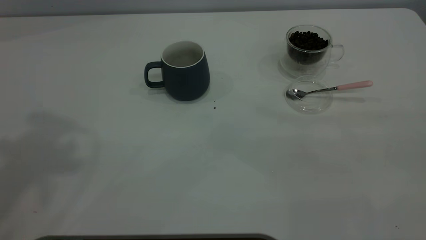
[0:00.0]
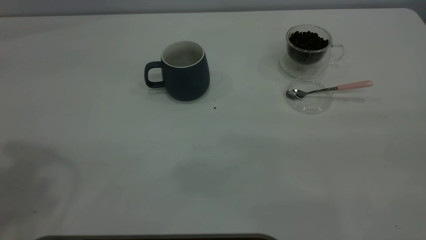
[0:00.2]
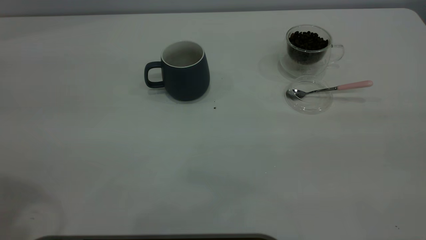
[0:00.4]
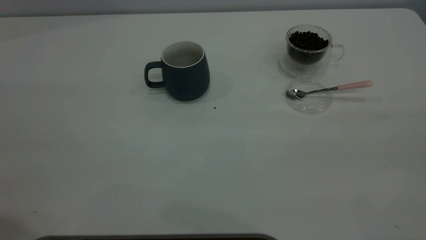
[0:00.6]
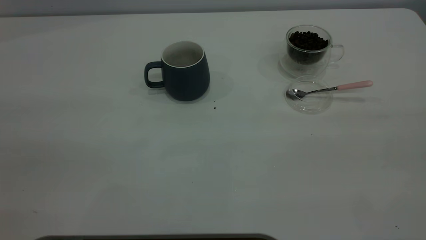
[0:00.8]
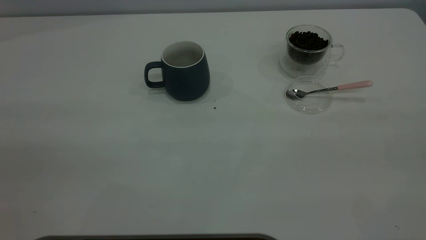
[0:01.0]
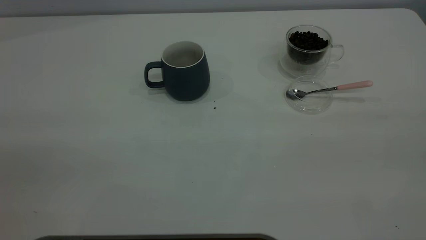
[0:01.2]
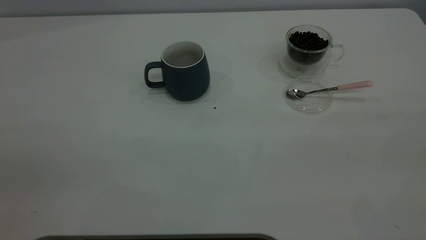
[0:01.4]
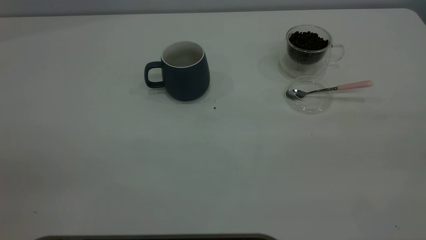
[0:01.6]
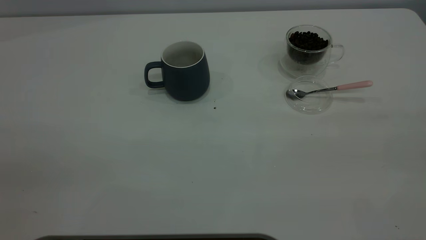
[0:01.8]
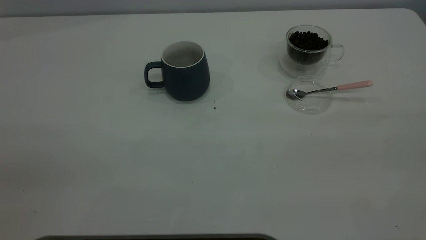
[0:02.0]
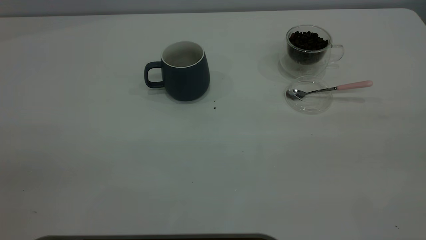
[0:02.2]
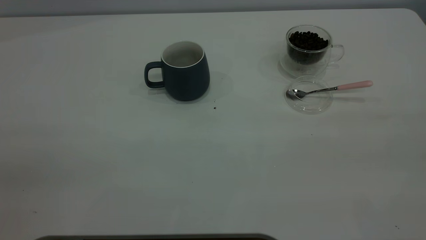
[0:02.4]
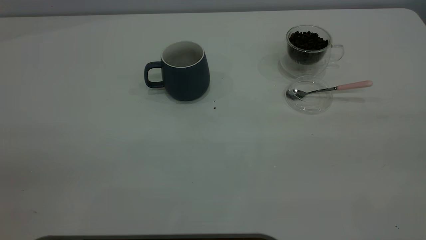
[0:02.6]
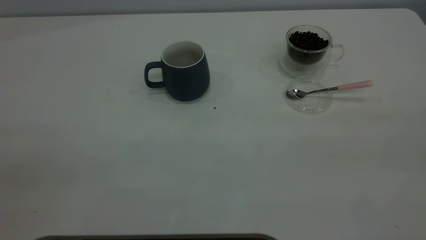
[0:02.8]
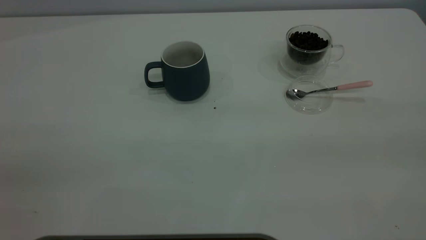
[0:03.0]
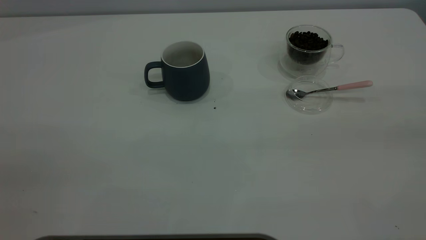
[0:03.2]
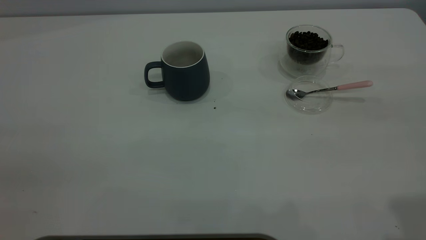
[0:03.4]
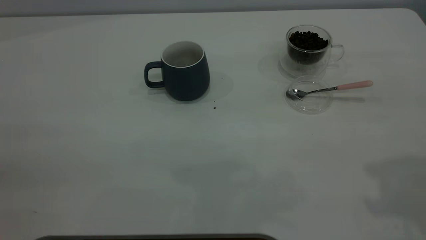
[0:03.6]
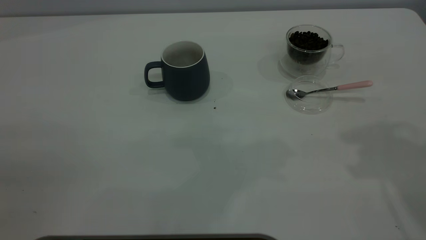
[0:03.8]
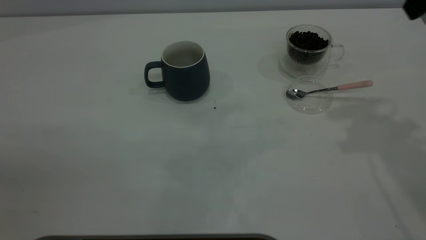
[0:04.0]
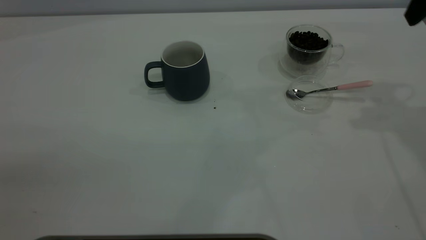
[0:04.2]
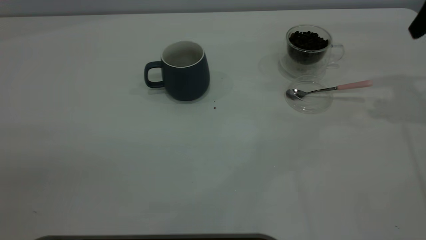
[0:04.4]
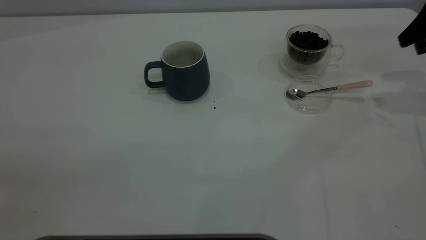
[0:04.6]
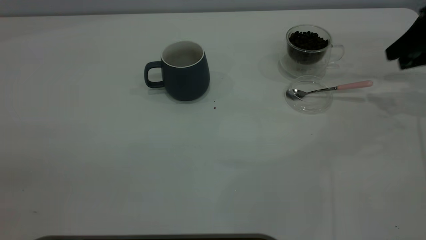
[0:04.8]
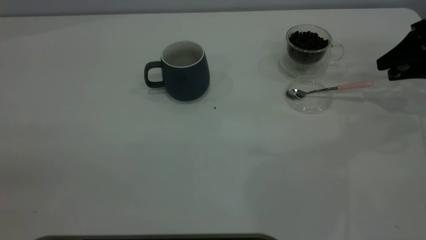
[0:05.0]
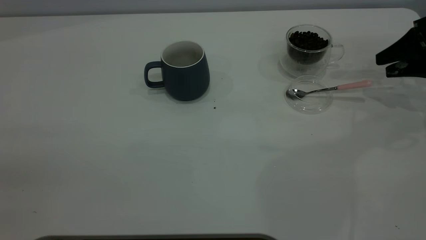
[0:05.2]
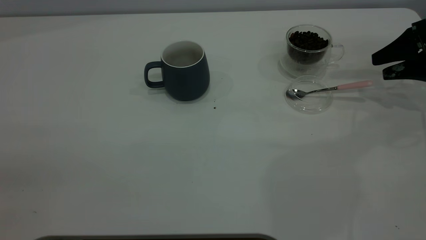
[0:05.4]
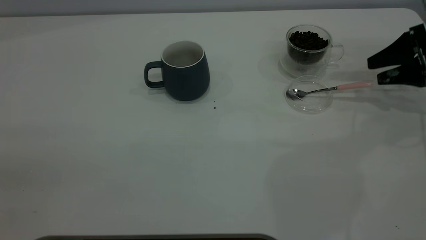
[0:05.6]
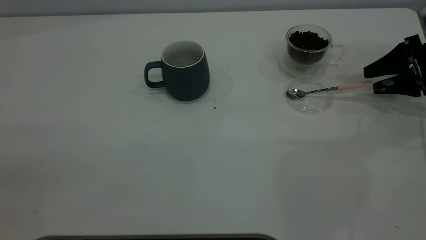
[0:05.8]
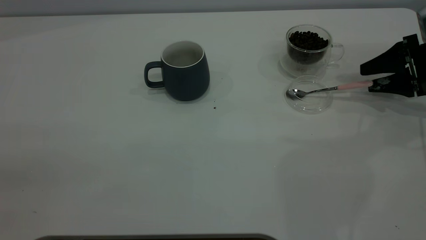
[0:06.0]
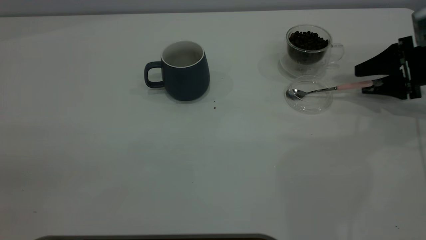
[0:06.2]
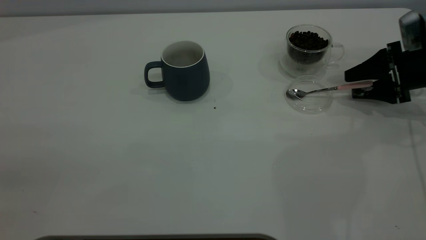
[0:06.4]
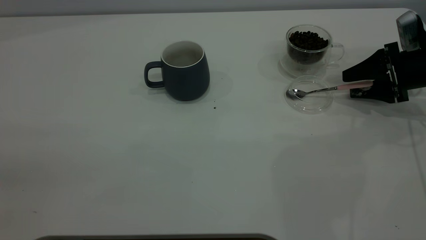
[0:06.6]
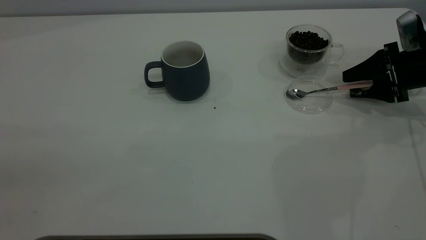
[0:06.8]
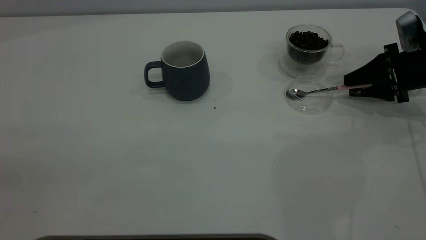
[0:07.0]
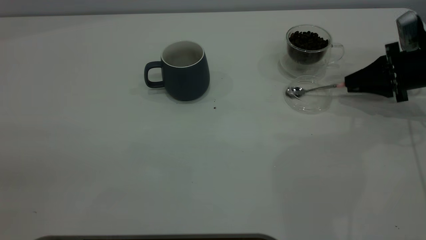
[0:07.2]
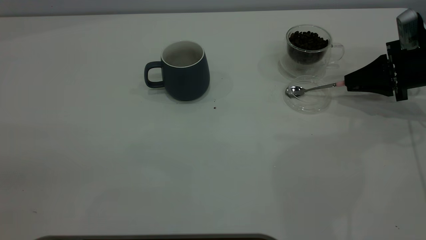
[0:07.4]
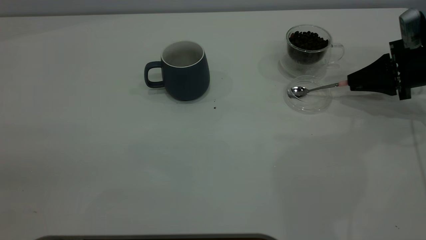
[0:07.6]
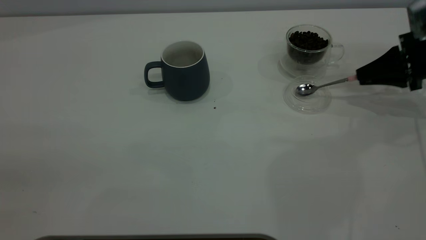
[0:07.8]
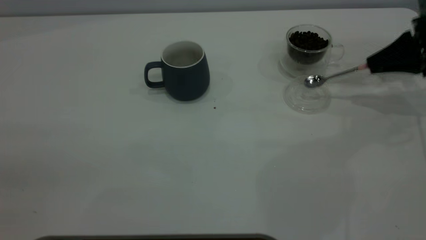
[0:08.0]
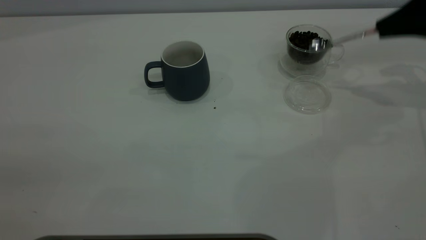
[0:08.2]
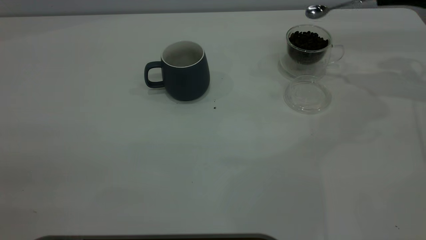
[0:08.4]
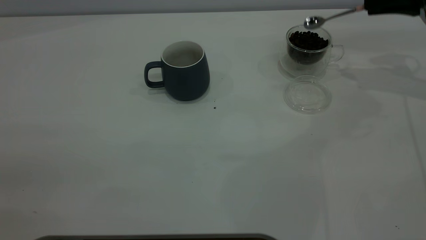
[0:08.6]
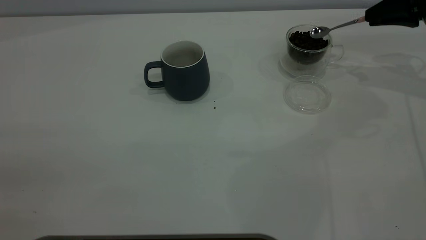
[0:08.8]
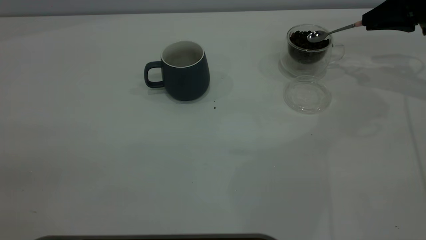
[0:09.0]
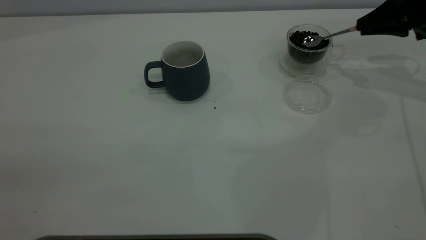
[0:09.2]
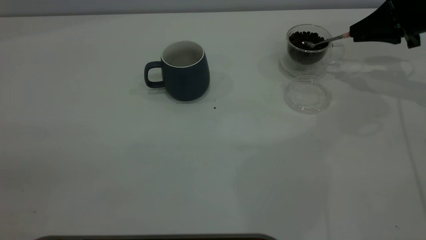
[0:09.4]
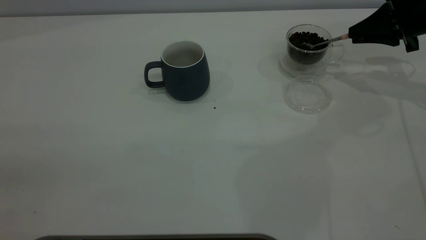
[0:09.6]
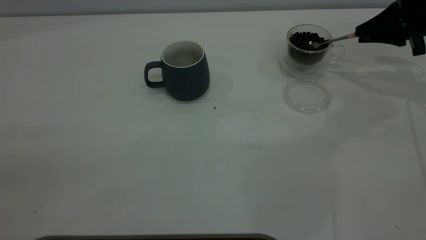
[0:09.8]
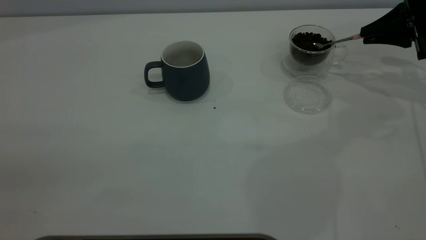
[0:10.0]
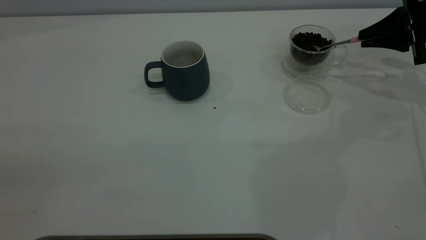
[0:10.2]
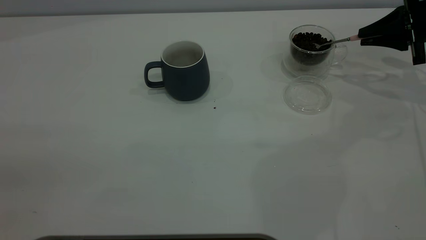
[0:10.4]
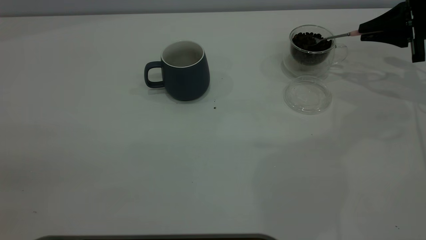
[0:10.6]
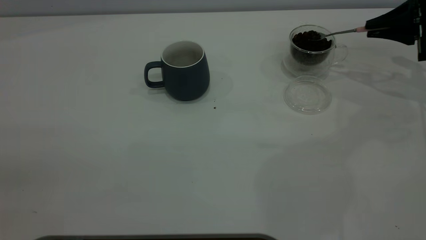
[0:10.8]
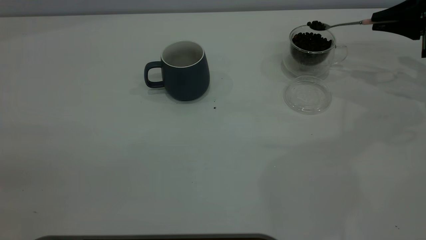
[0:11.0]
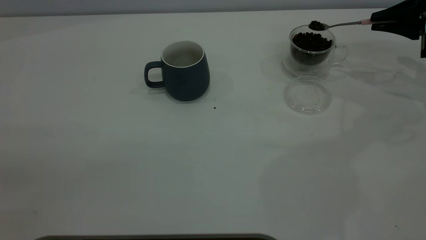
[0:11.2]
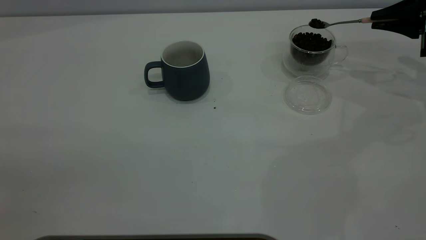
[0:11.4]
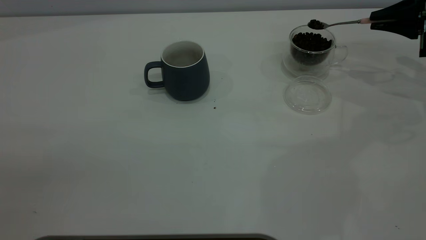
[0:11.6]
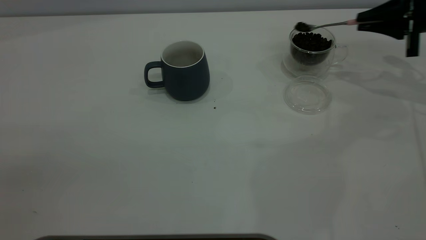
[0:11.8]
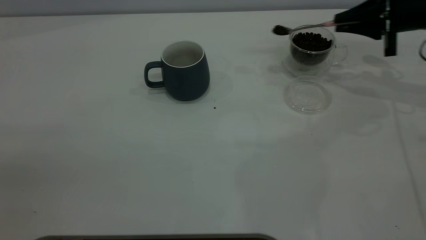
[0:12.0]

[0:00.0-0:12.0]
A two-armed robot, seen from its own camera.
Task of the whole recording: the left gripper place the grey cup in the center of the table, the right gripper take the pink spoon from the cup lid and scoop out the coffee beans from the coffee cup and put them into the grey cup, the right gripper put the spoon back into the cup lid.
Step, 0:00.0 to 0:07.8: Pick up the spoon.
0:04.4 to 0:06.0: The right gripper shifts about 15 cm downward.
0:06.0 to 0:07.6: The right gripper closes.
0:07.6 to 0:09.0: The right gripper shifts approximately 10 cm upward.
0:10.4 to 0:12.0: The grippers make only small movements.

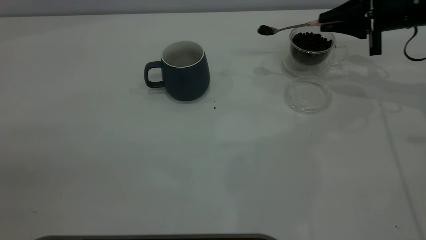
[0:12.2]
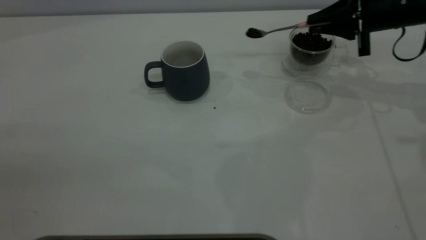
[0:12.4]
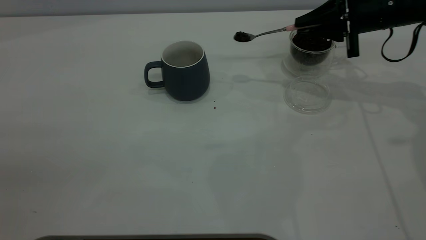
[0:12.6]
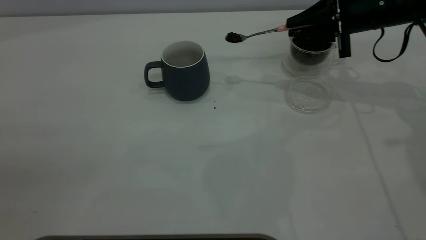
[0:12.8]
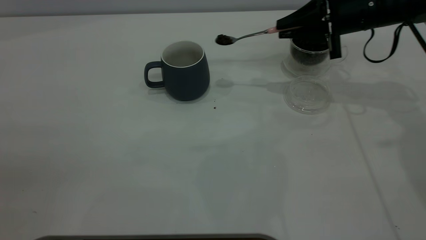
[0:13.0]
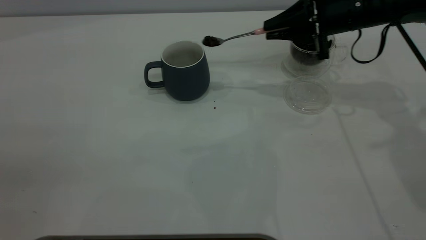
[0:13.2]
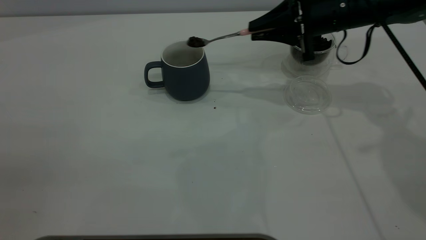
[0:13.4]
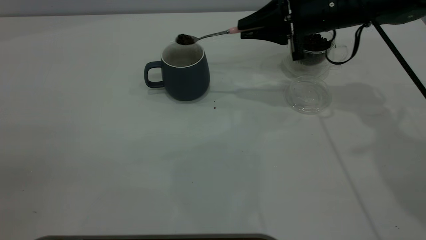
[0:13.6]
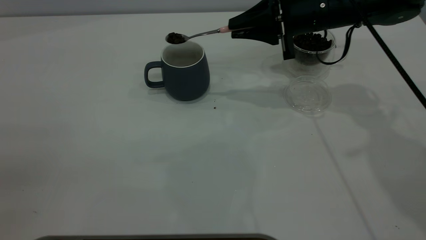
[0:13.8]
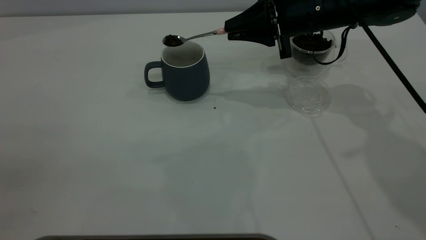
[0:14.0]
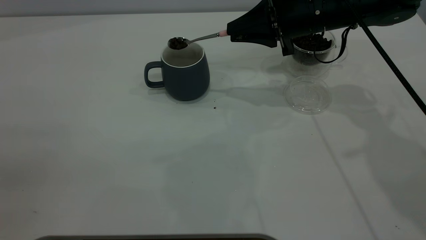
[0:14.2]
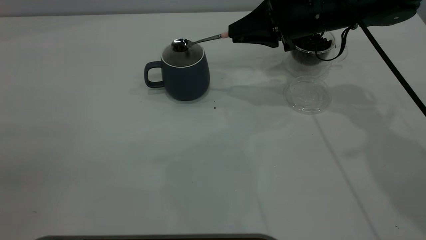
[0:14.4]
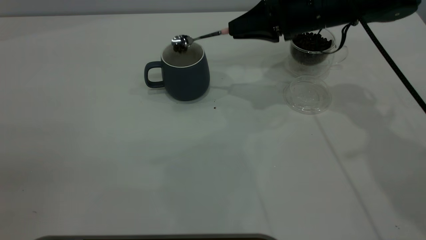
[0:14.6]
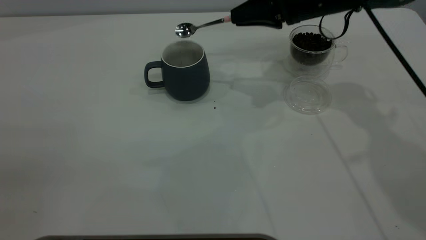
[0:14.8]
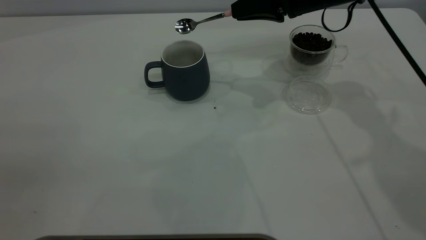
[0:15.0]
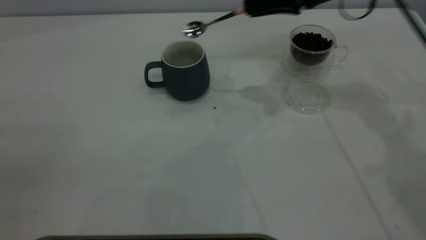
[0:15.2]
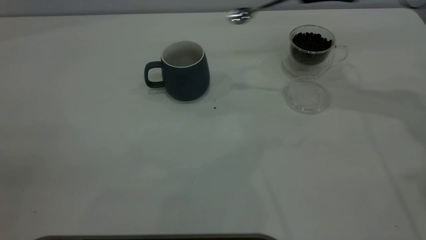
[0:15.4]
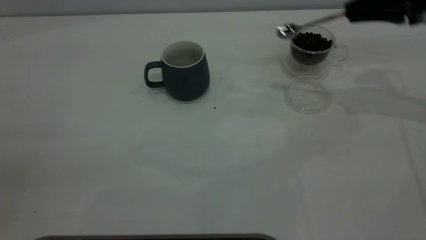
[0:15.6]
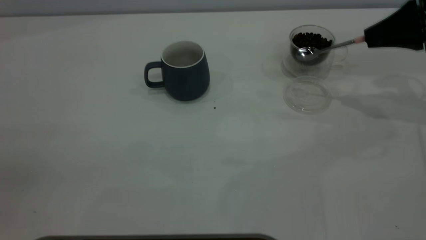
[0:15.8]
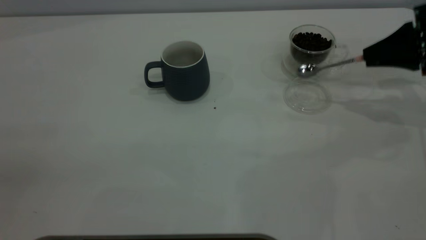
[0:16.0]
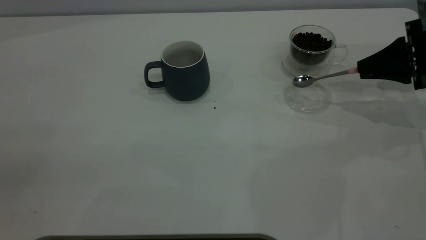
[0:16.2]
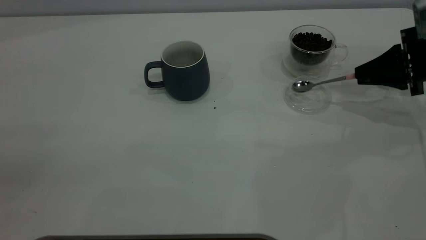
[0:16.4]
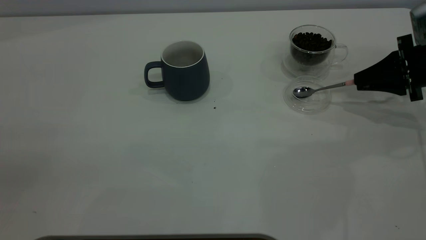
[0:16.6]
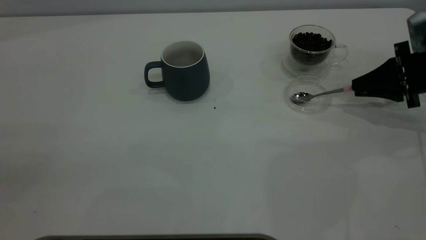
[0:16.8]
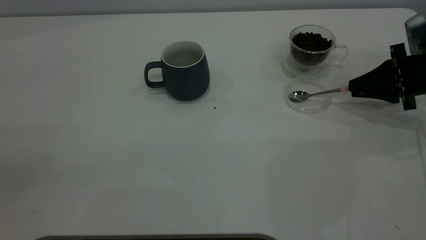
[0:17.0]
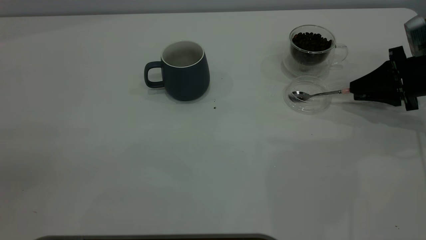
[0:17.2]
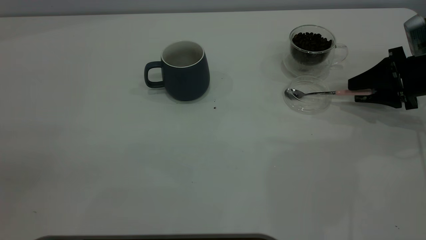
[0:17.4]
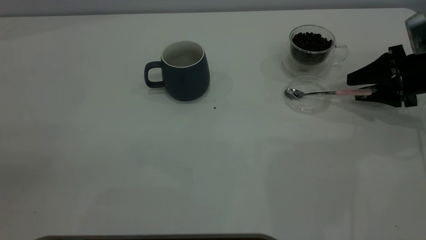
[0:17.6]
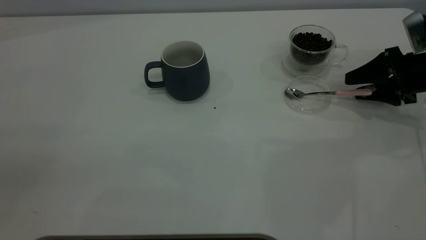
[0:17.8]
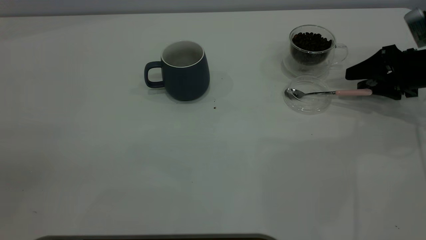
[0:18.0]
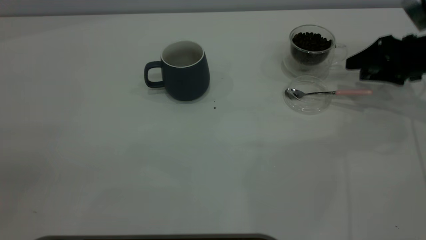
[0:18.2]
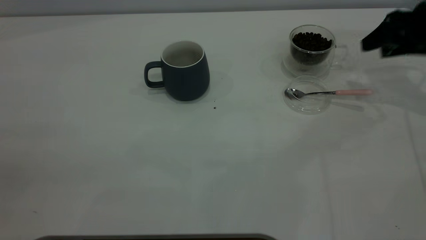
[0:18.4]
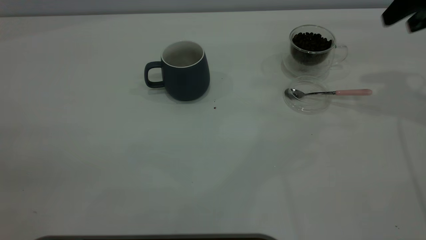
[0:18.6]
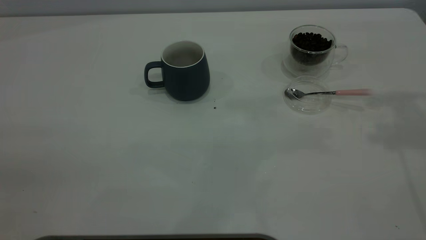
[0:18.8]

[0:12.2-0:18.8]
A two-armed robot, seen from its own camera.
Task of the whole recording: the left gripper place the grey cup in the center of the table, the right gripper take the pink spoon from the cup lid and scoop out the coffee beans from the coffee cup and put them into the grey cup, the right gripper put the spoon back into the cup lid.
Step, 0:12.2 to 0:15.0: Scoop a spoonful of beans into the cup.
Step, 0:15.2 to 0:18.0: Place the spoon back in its original place.
0:12.2 to 0:13.8: The right gripper goes roughly 15 cm to the left.
0:13.8 to 0:15.4: The right gripper goes some 15 cm to the right and upward.
0:15.4 to 0:17.2: The right gripper is displaced downward and to the right by roughly 20 cm.
0:17.2 to 0:18.8: The right gripper shifts about 25 cm upward, and opens its fingers.
